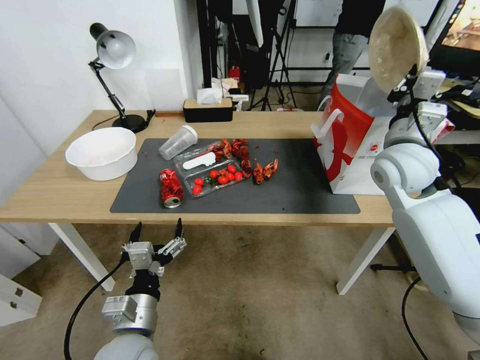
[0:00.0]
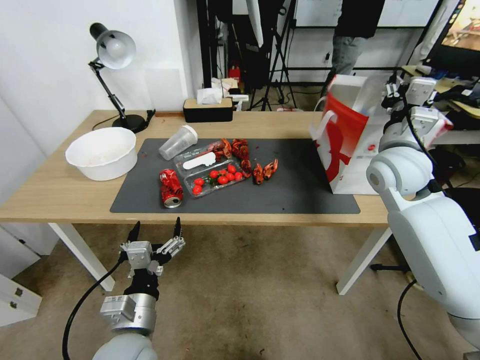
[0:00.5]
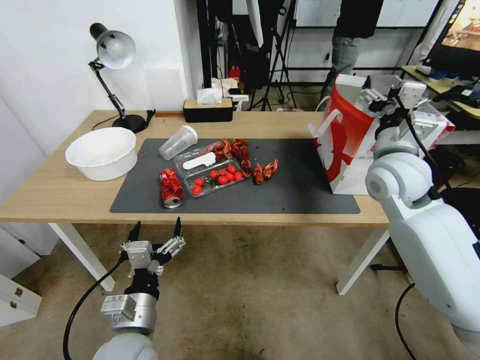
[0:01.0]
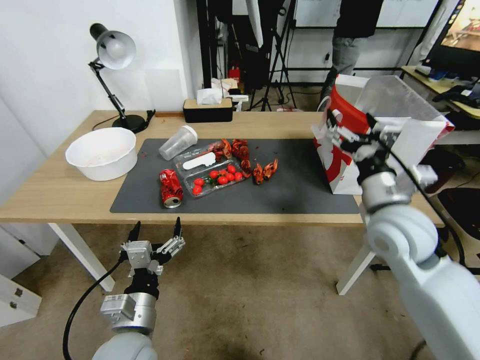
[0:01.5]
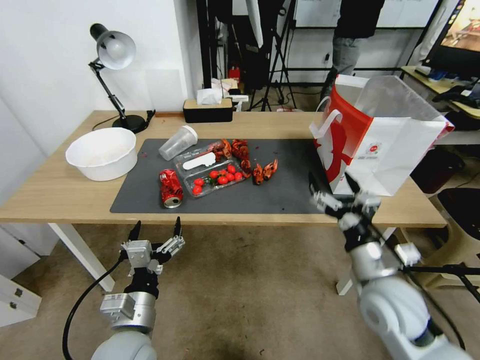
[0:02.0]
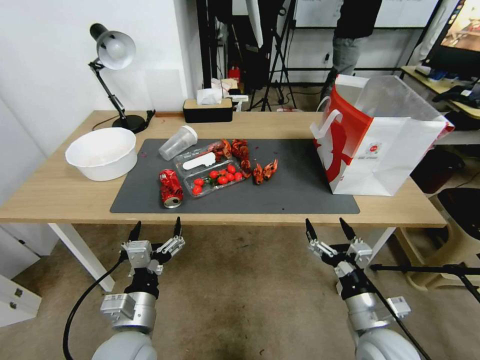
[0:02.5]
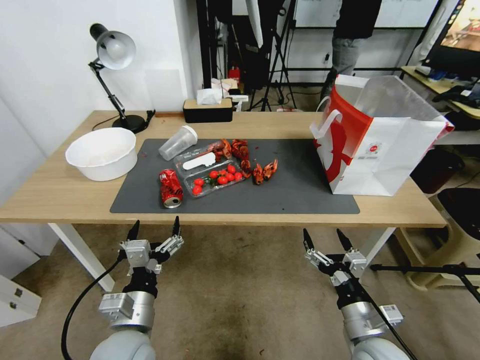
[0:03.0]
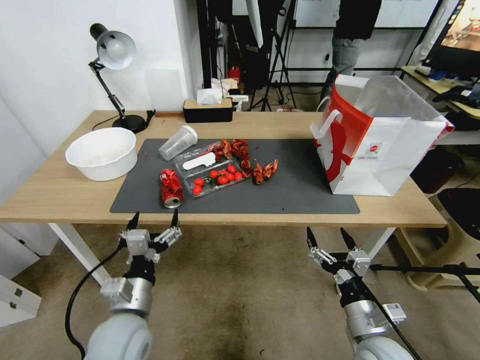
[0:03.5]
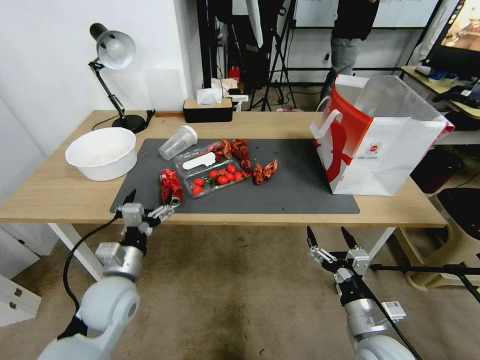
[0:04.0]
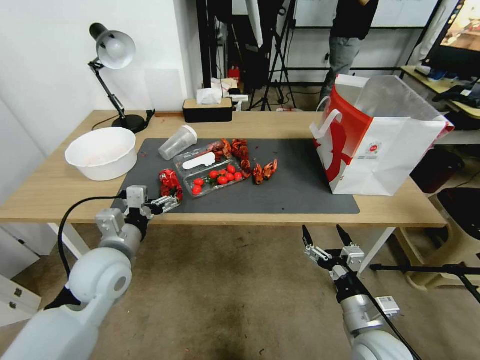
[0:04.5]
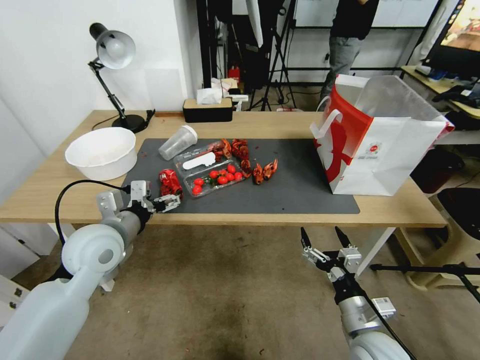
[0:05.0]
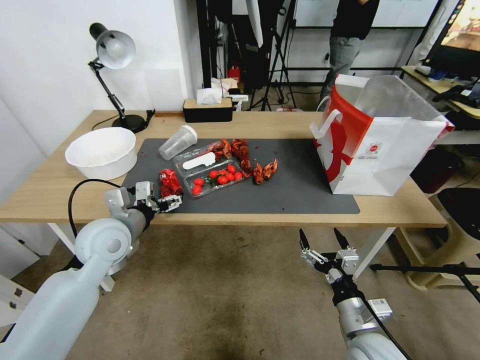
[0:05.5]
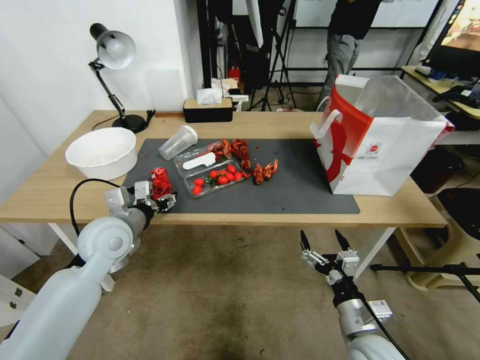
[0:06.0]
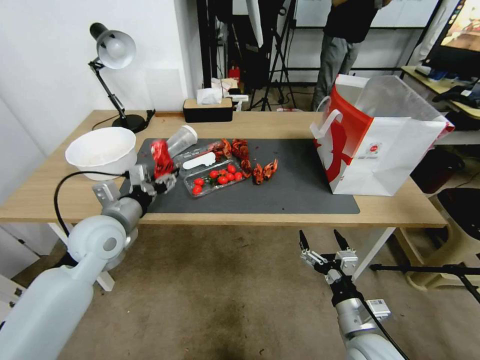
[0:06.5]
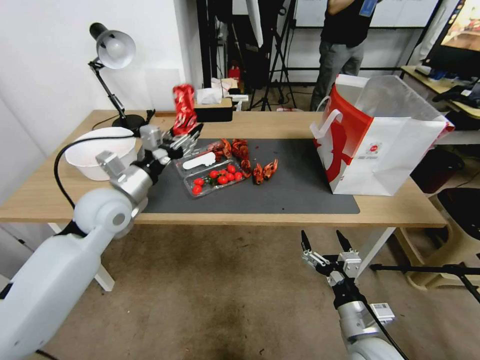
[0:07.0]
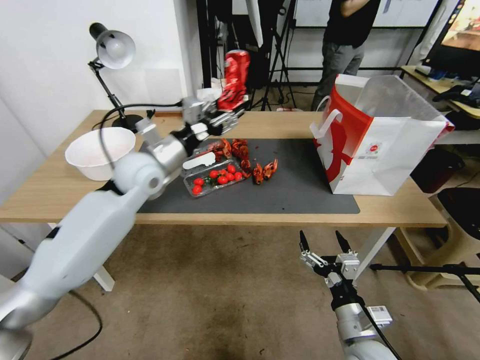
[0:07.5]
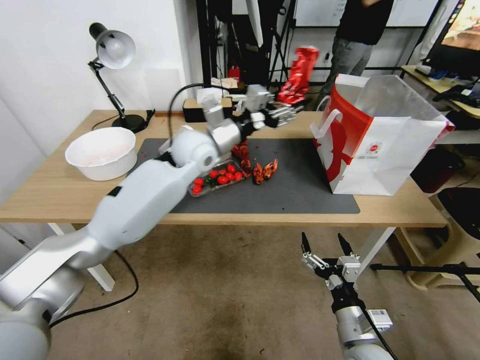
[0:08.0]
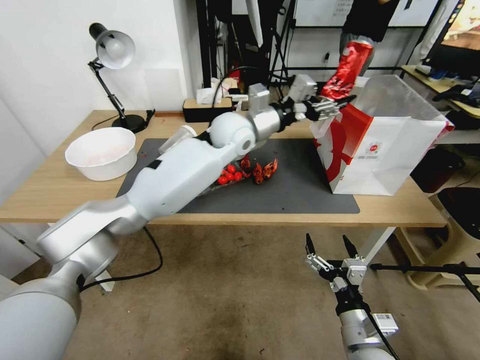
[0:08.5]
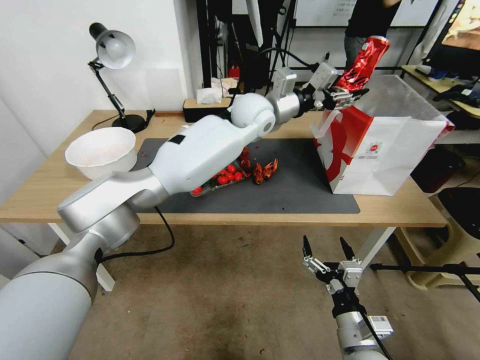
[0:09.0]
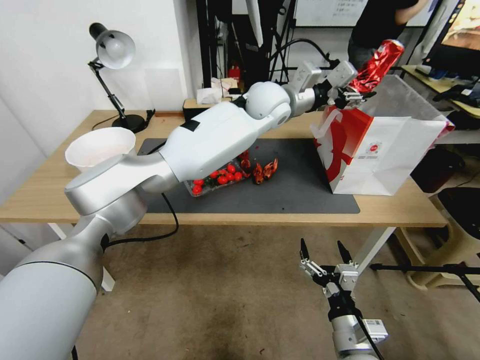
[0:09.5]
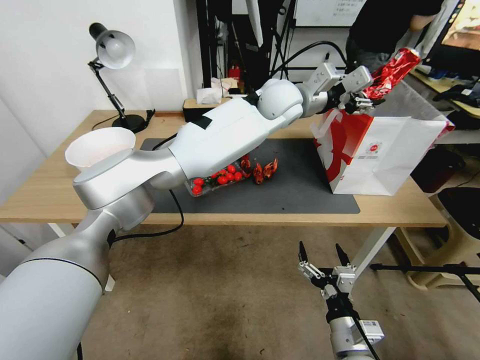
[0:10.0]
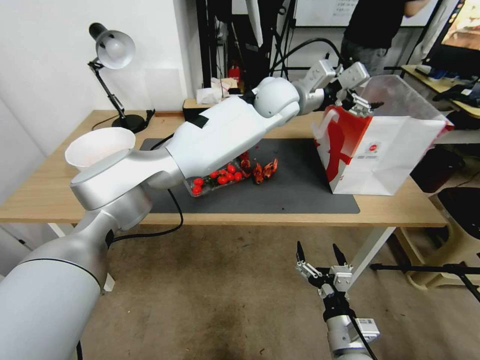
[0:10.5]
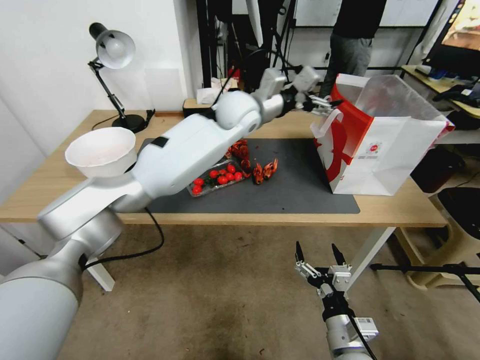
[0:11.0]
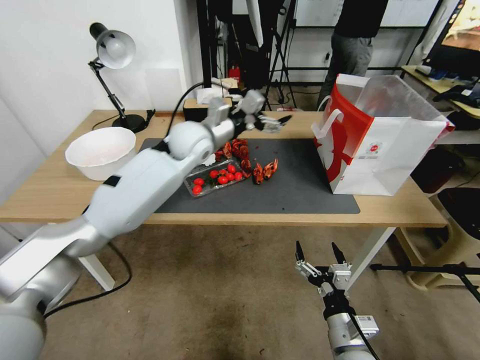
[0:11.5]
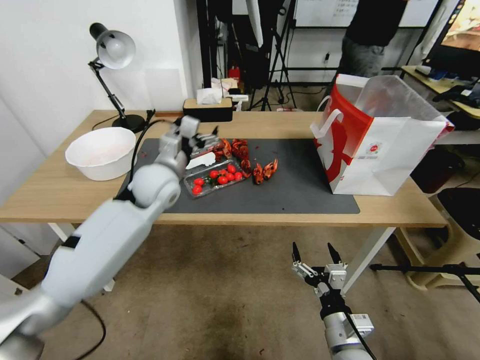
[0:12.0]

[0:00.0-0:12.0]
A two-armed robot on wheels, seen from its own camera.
0:00.0 to 0:02.0: The right gripper goes approximately 10 cm backward, and opens up.
0:02.0 to 0:04.0: The left gripper shifts about 5 cm forward, while the right gripper goes roughly 30 cm downward and backward.
0:04.0 to 0:06.0: The left gripper goes some 15 cm forward and upward, and closes up.
0:06.0 to 0:08.0: The left gripper is displaced to the right, forward and upward by approximately 25 cm.
0:08.0 to 0:10.0: The left gripper travels to the right and upward by roughly 20 cm.
0:10.0 to 0:12.0: The left gripper moves to the left and downward, approximately 30 cm, and opens.

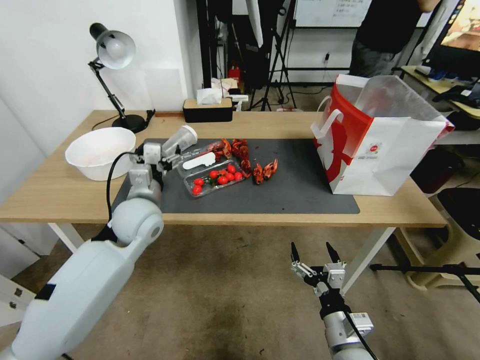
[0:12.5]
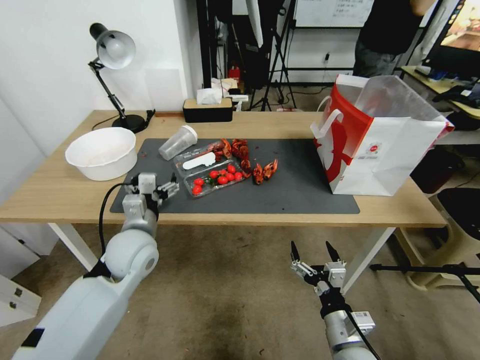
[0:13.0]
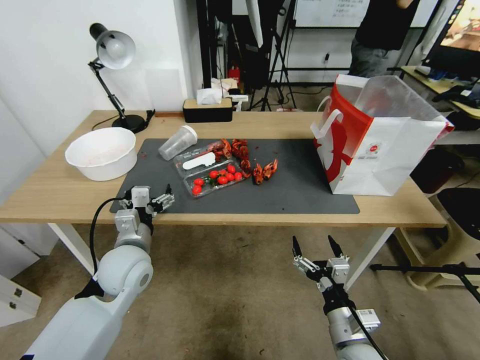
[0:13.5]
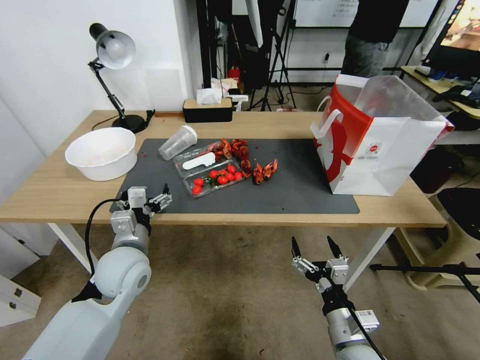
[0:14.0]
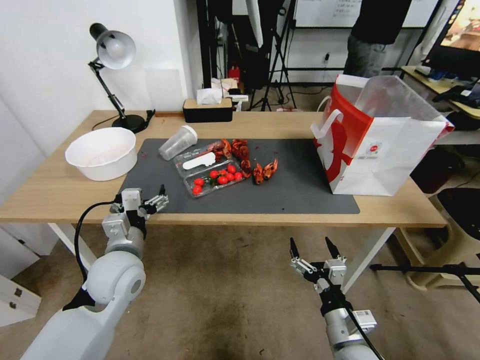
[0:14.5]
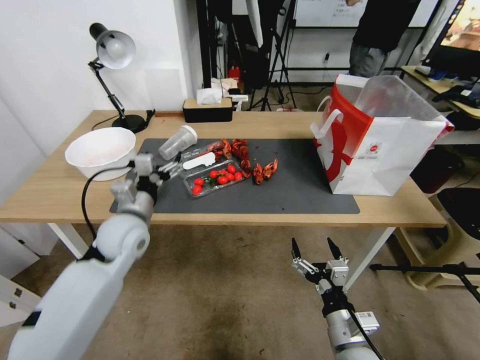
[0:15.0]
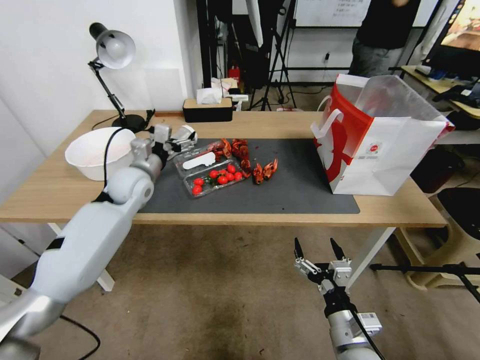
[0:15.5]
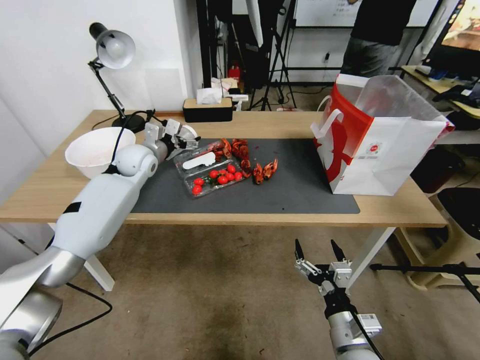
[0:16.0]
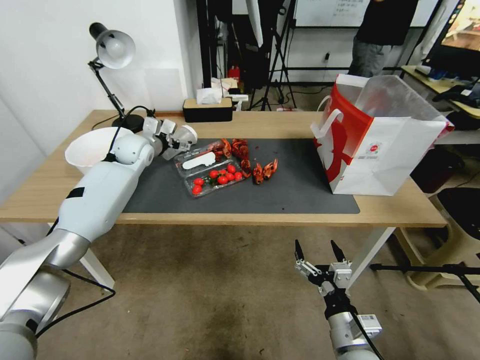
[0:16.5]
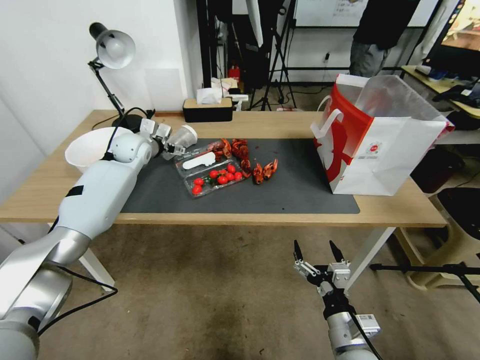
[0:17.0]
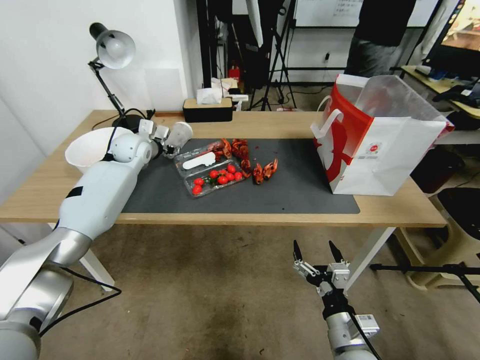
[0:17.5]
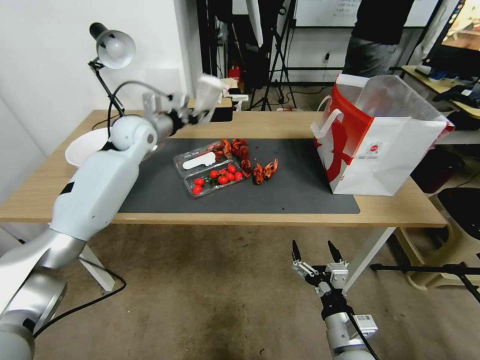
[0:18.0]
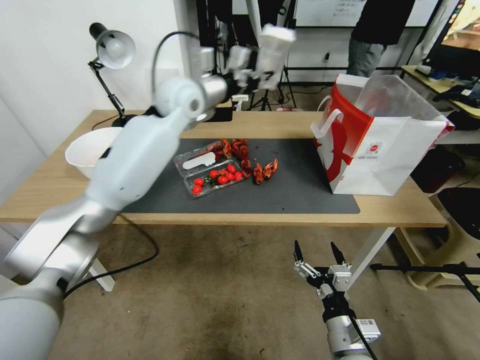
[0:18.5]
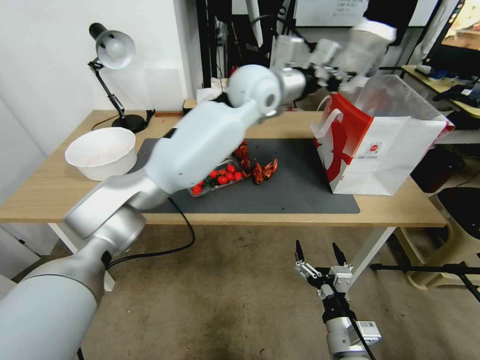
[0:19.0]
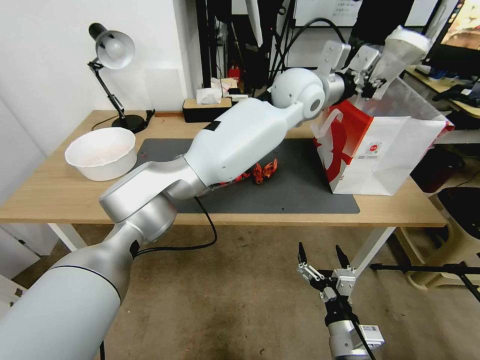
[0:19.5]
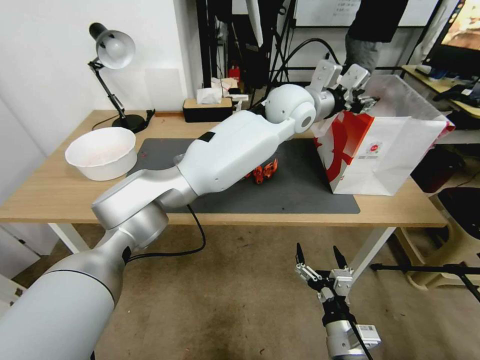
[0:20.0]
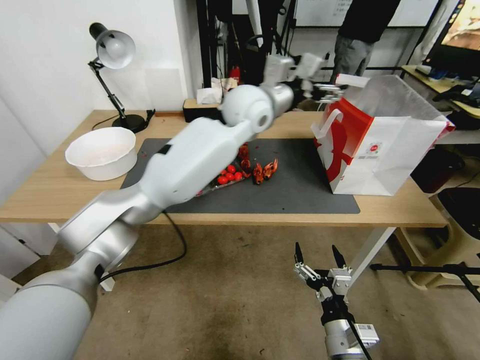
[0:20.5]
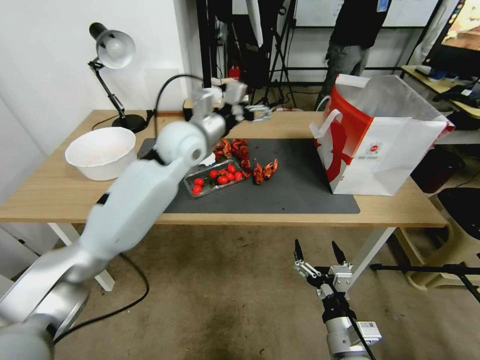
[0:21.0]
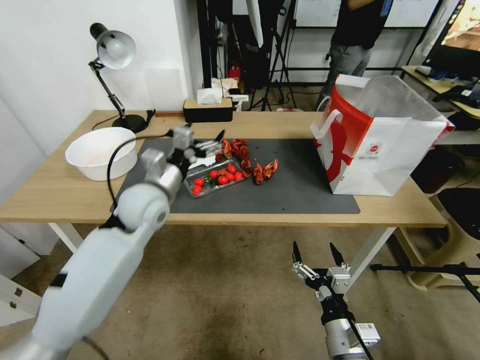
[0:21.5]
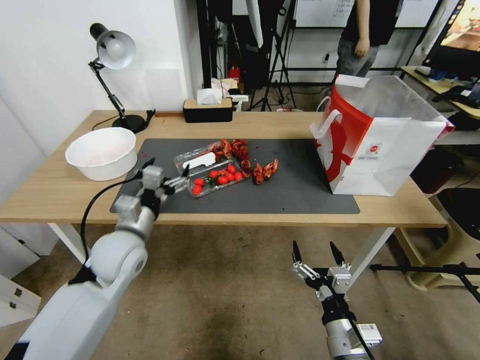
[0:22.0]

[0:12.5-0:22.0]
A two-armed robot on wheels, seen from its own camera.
0:12.5 to 0:14.5: The left gripper heads backward, covering about 10 cm.
0:14.5 to 0:16.5: The left gripper shifts about 30 cm forward.
0:16.5 to 0:18.0: The left gripper shifts roughly 5 cm upward, and closes up.
0:18.0 to 0:20.0: The left gripper travels to the right by approximately 35 cm.
0:20.0 to 0:22.0: The left gripper is displaced to the left, backward and downward by roughly 50 cm, and opens its fingers.

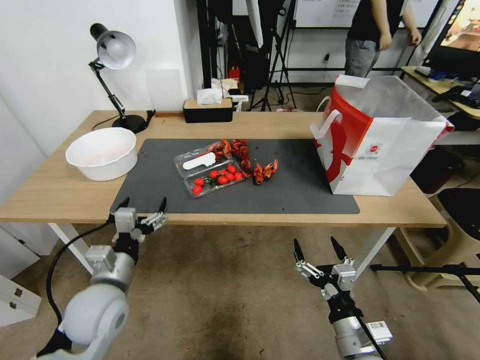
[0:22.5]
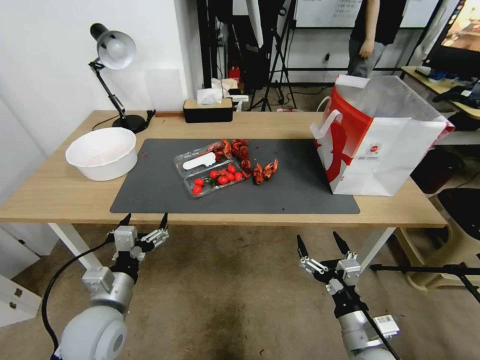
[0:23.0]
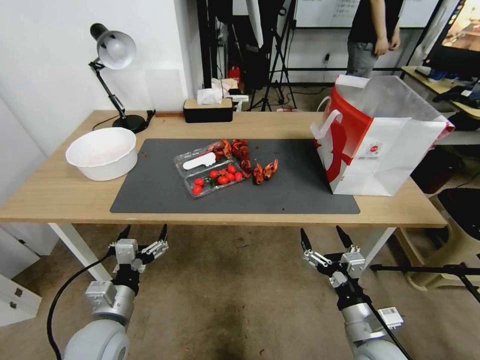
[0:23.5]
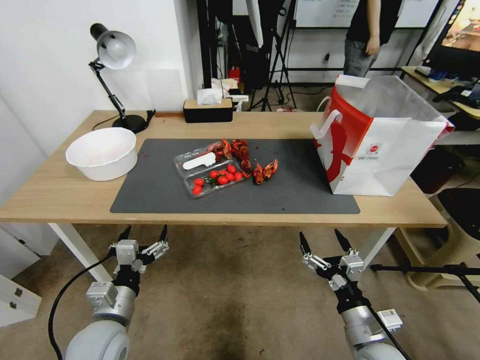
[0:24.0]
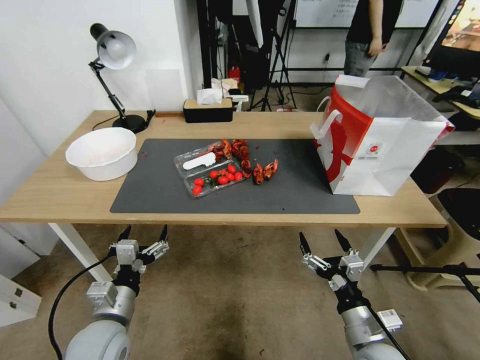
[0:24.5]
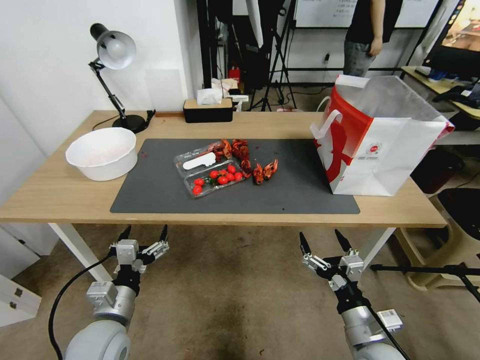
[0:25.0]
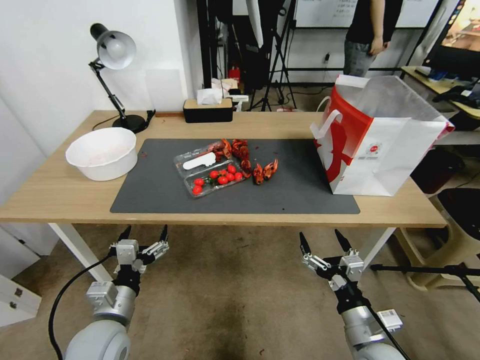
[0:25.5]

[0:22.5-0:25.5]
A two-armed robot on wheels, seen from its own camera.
0:22.5 to 0:24.0: The left gripper changes place by roughly 5 cm.
0:24.0 to 0:25.5: The two grippers keep their place.
